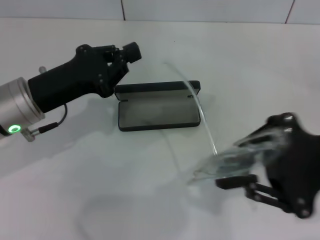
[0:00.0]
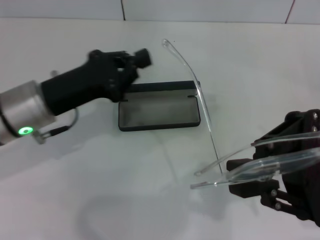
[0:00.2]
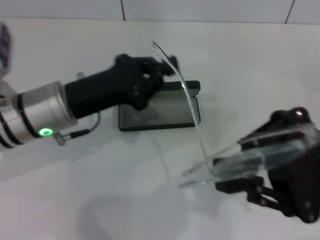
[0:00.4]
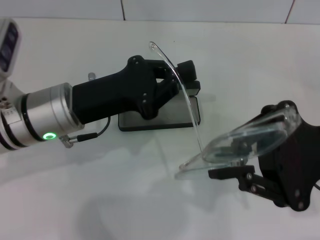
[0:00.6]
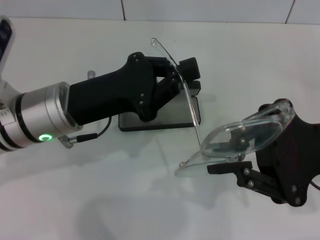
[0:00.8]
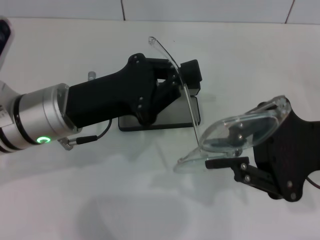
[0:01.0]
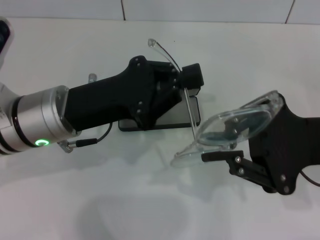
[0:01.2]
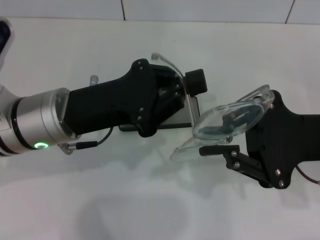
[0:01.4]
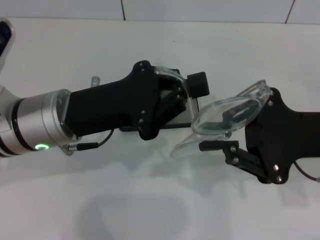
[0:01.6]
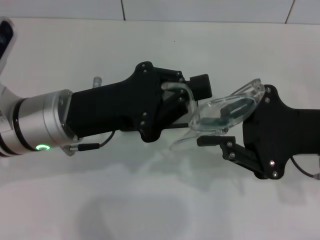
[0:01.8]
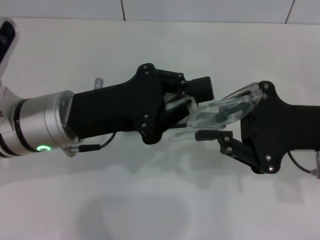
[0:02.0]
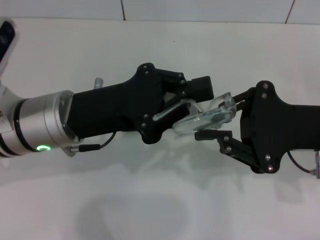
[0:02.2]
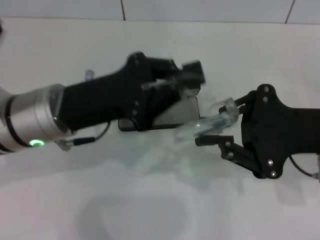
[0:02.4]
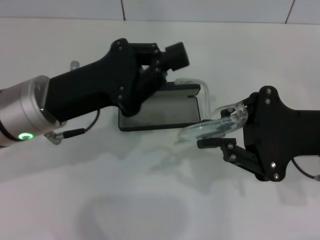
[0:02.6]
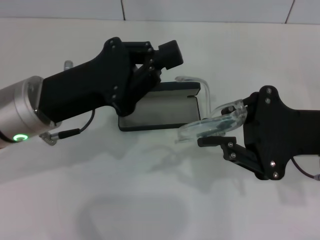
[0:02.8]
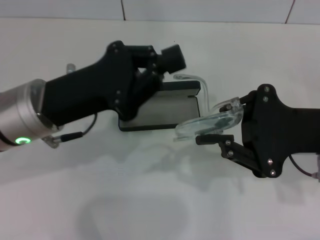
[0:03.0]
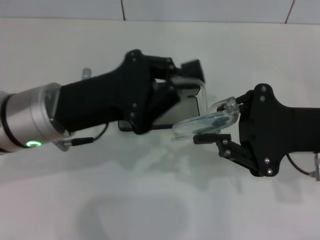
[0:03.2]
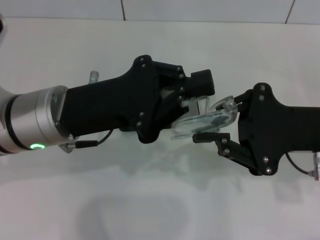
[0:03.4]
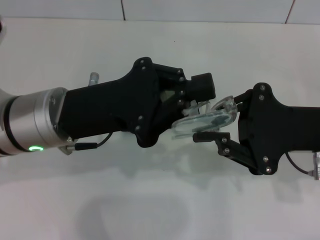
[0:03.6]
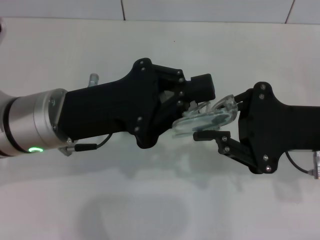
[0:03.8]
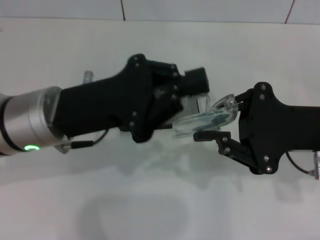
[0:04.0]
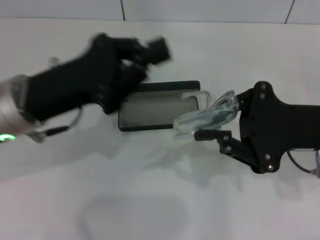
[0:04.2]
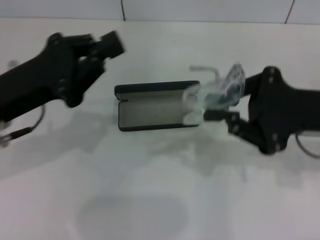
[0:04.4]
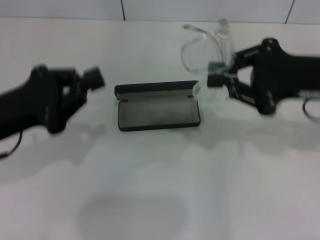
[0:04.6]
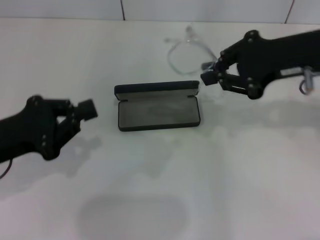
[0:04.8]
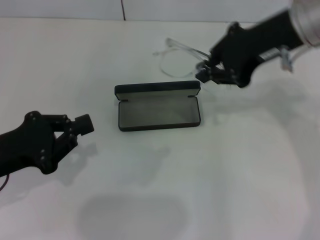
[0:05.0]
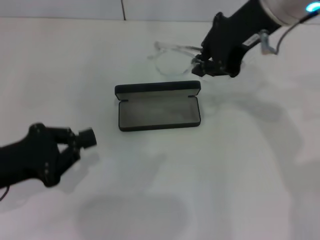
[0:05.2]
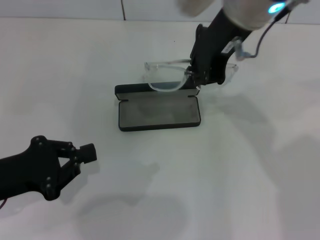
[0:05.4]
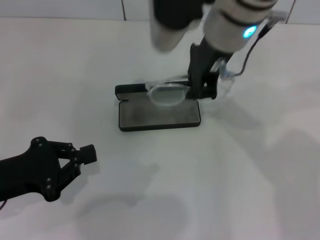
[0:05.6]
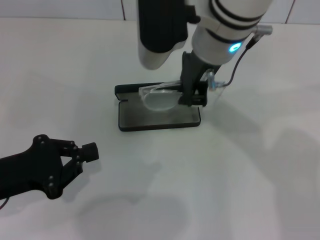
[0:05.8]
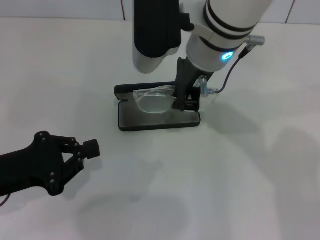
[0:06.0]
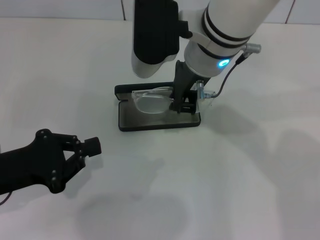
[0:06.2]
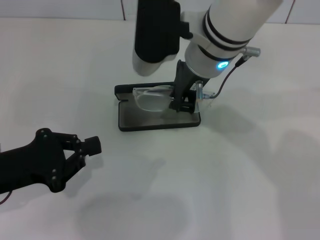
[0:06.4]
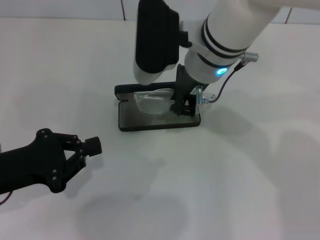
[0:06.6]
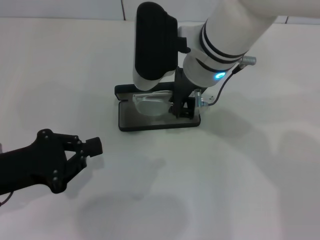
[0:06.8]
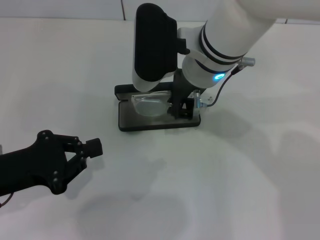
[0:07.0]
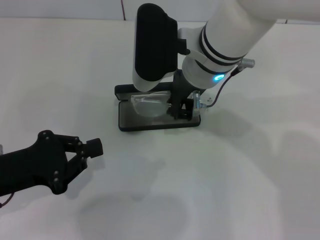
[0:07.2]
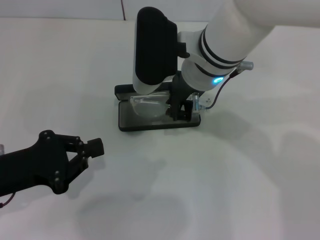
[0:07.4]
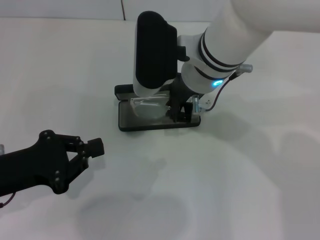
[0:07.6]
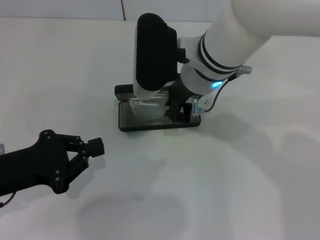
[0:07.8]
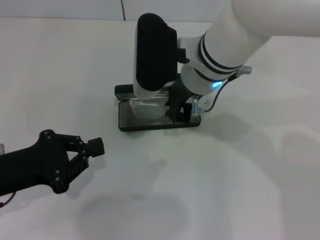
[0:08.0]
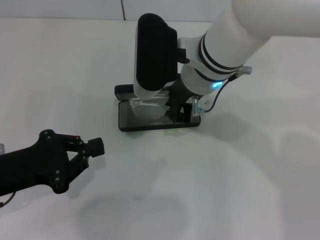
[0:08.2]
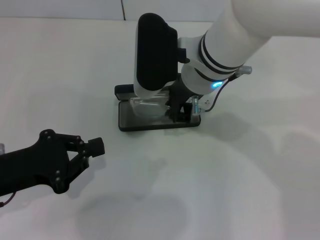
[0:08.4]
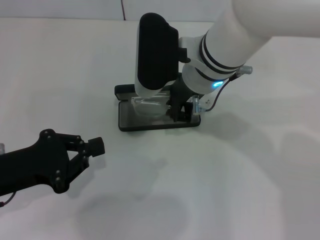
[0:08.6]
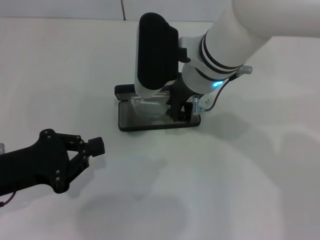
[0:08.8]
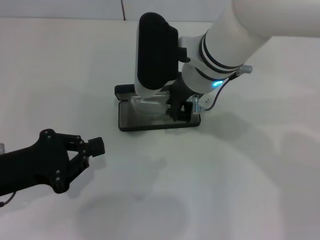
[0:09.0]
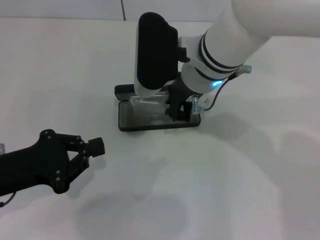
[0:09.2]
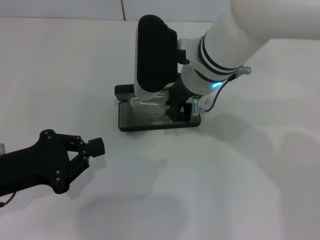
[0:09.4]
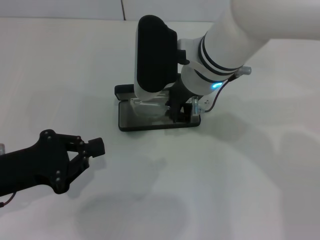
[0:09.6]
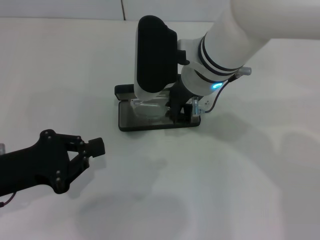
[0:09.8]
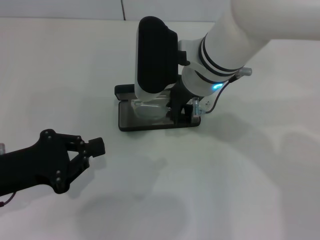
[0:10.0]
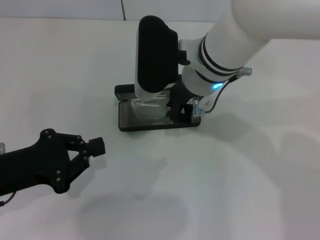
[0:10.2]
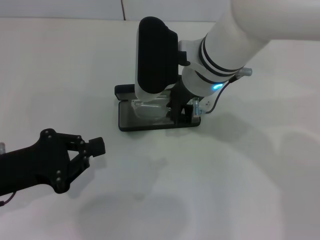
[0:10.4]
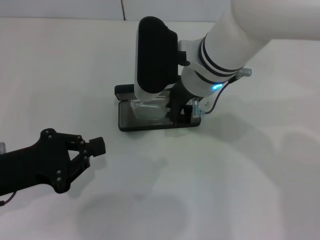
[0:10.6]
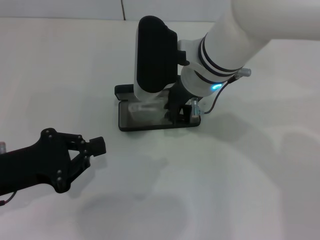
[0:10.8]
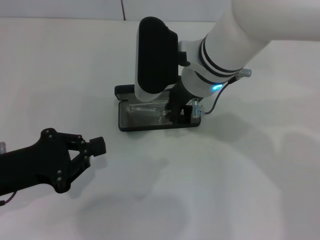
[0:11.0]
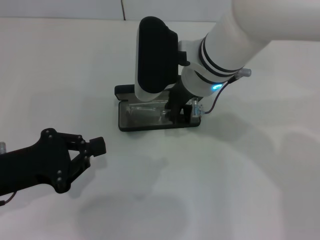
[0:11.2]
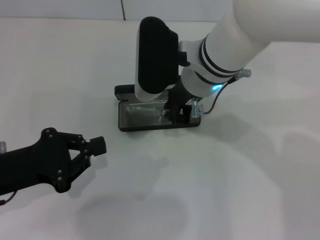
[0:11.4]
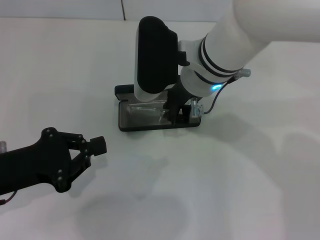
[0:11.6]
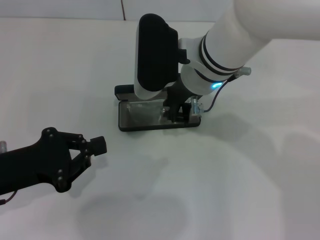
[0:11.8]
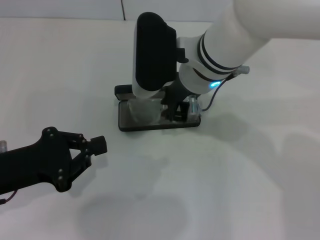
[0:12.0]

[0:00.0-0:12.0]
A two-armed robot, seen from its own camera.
Step, 0:00.0 to 0:03.6: Fold the frame with your left hand.
0:00.0 to 0:01.6: The left gripper is displaced to the right by some 5 cm.
0:03.0 to 0:04.4: The left gripper moves to the left, about 5 cm.
0:04.4 to 0:06.0: The left gripper heads backward and downward, covering approximately 10 cm. Meanwhile the right gripper goes roughly 20 cm to the left and forward.
0:06.0 to 0:07.6: The grippers stay close to where they were, moving slightly.
0:07.6 to 0:12.0: The two grippers keep their place.

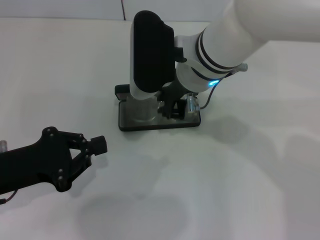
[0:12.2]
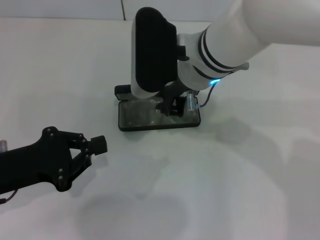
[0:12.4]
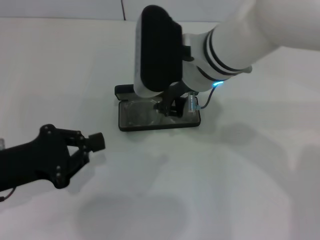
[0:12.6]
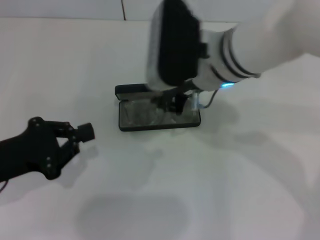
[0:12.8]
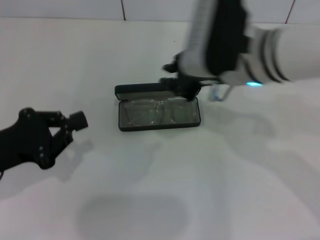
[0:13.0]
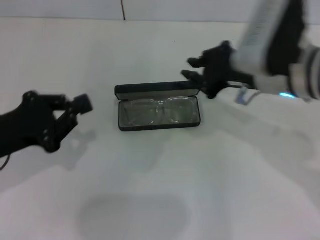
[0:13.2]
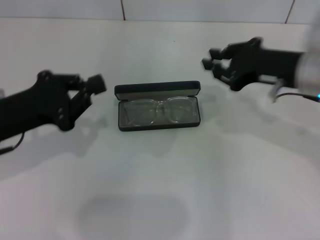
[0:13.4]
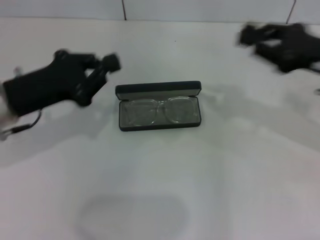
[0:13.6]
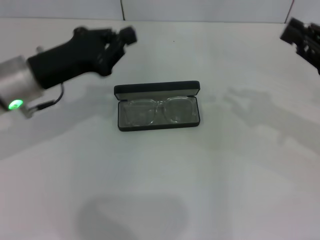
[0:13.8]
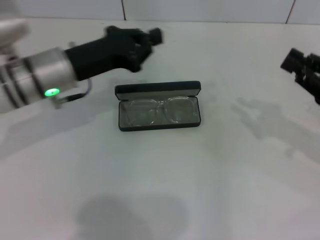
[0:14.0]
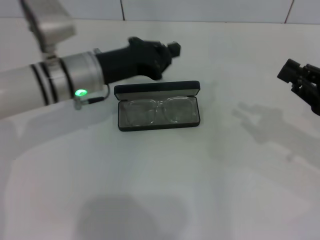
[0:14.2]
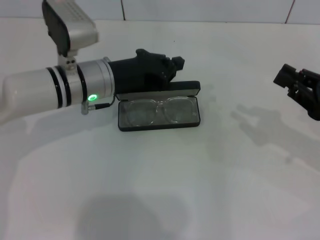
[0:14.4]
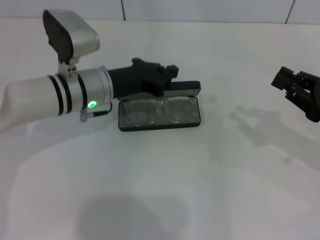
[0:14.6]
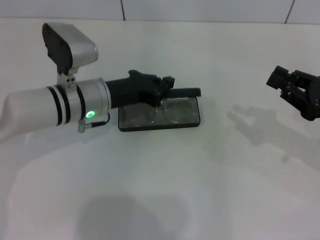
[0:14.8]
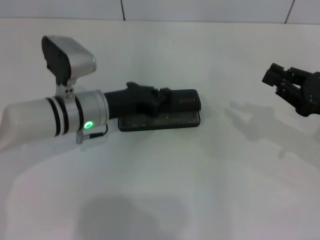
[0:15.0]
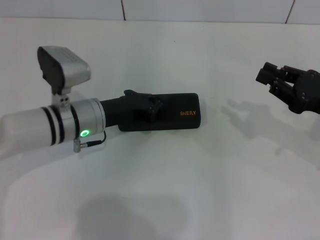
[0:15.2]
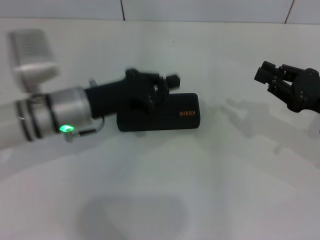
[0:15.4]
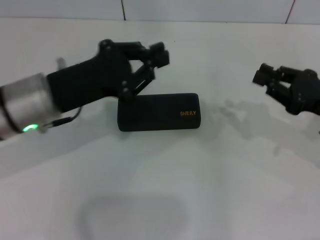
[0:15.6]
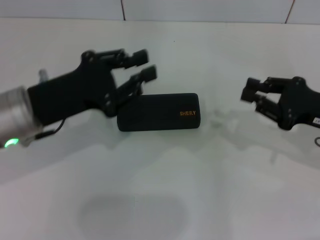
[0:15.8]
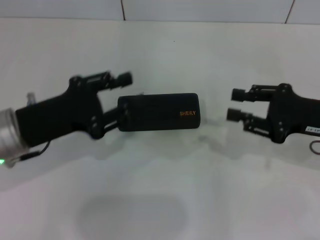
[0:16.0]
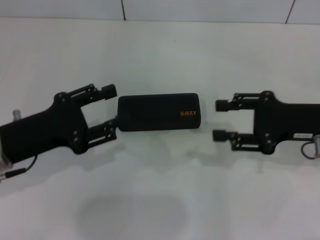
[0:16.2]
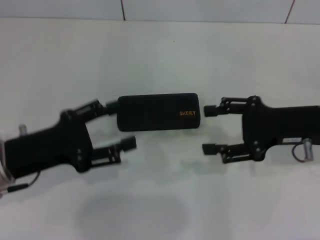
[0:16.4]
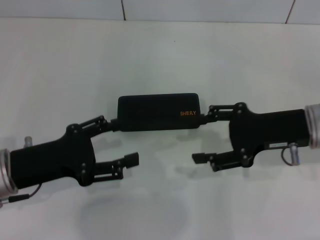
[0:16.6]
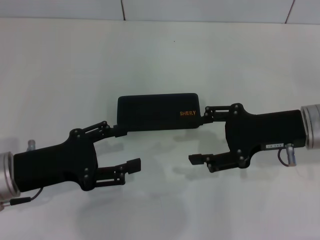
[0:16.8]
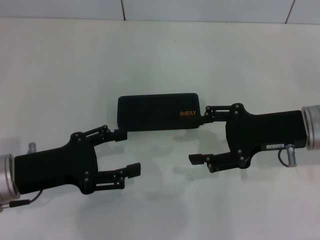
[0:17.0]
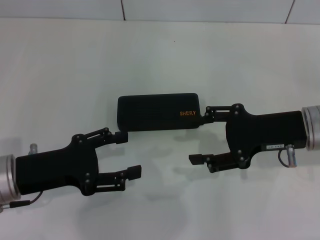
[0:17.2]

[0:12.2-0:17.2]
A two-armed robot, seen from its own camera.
Step, 0:12.6 to 0:15.0: Close the glasses case with your left hand.
0:12.2 to 0:13.8: The right gripper goes about 30 cm to the right, while the left gripper moves forward and to the right, some 15 cm.
0:13.8 to 0:15.6: The left gripper goes downward and returns, about 10 cm each way.
0:15.6 to 0:17.2: The right gripper shifts some 10 cm to the left, and opens; the left gripper moves backward, to the left and downward, roughly 10 cm, and opens up.
